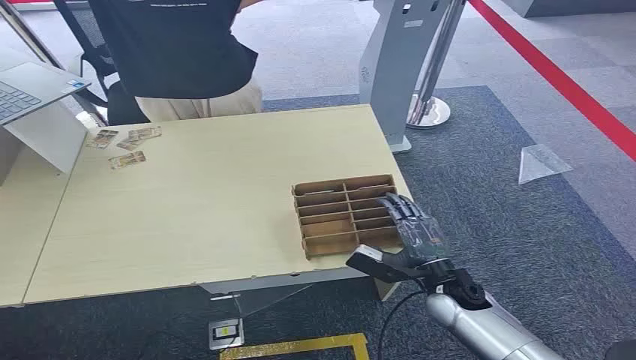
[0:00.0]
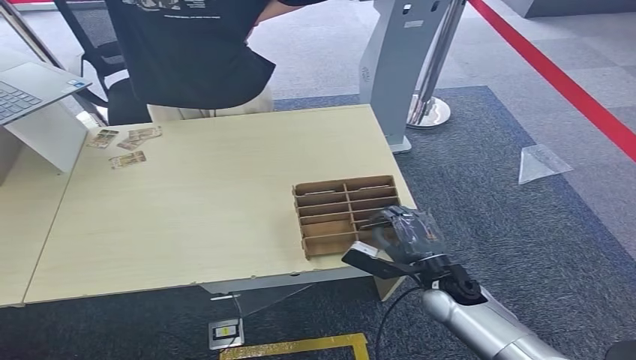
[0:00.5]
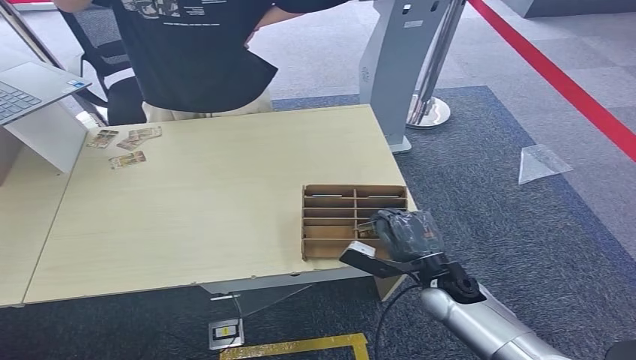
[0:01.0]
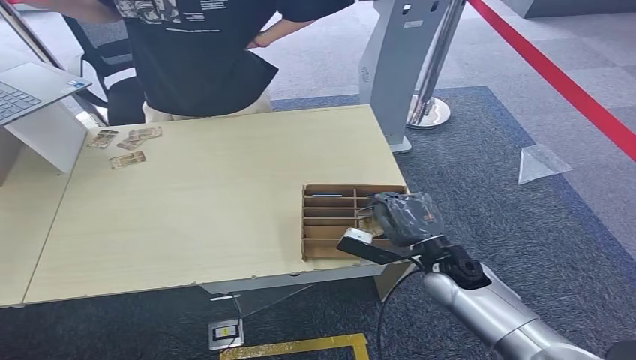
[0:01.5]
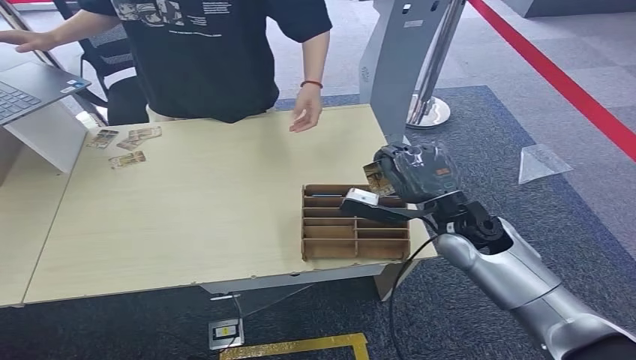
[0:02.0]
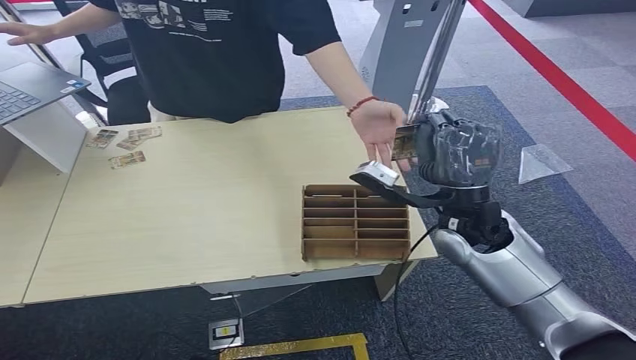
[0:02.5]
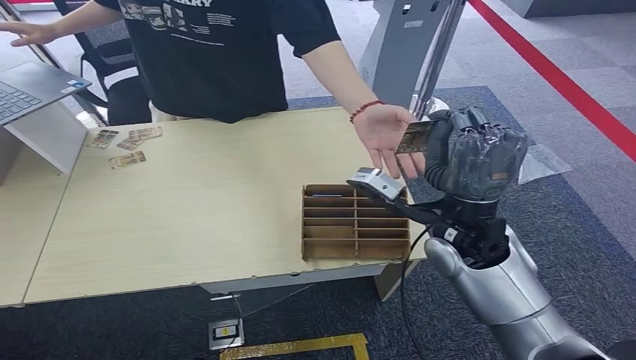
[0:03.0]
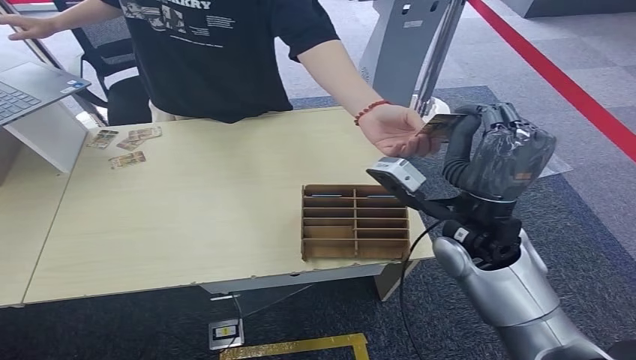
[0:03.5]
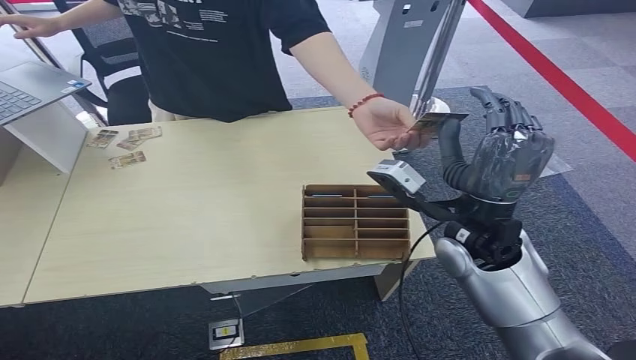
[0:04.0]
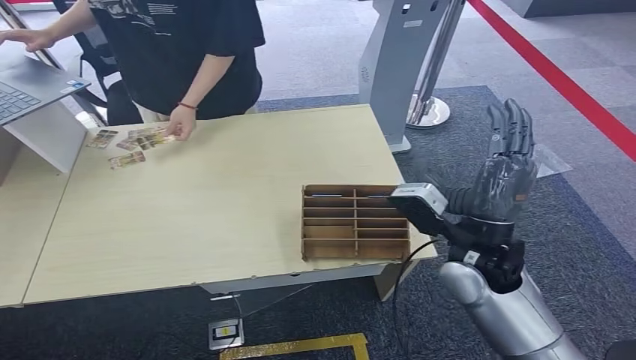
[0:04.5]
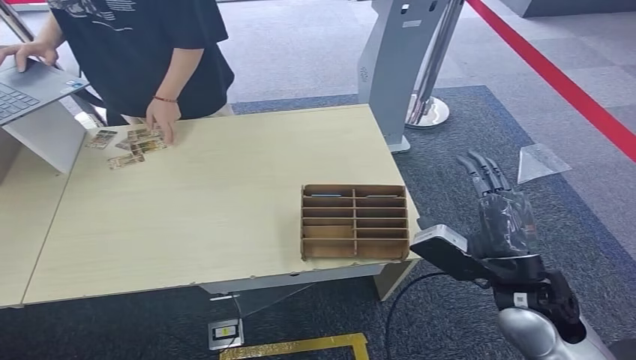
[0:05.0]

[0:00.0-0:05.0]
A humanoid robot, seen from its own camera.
Step, 0:00.0 to 0:01.5: Pick up the key card from the card box.
Step, 0:02.0 to 0:05.0: Hand the key card to the target.

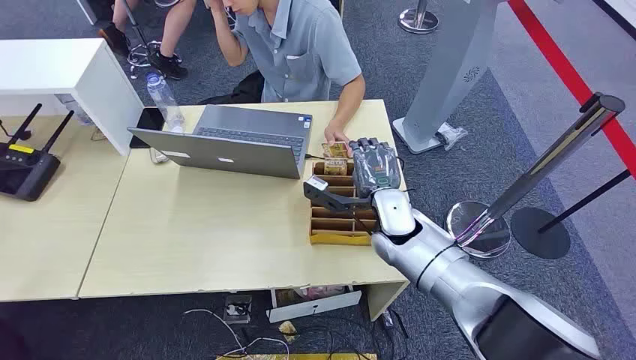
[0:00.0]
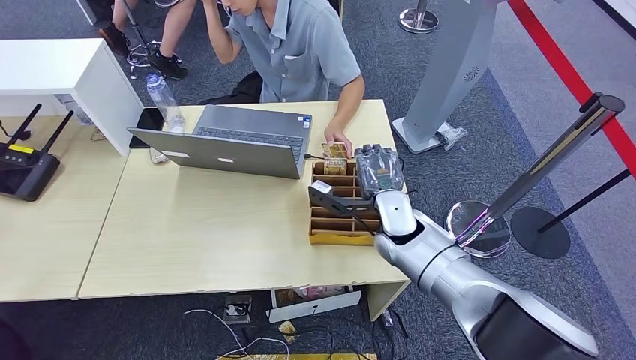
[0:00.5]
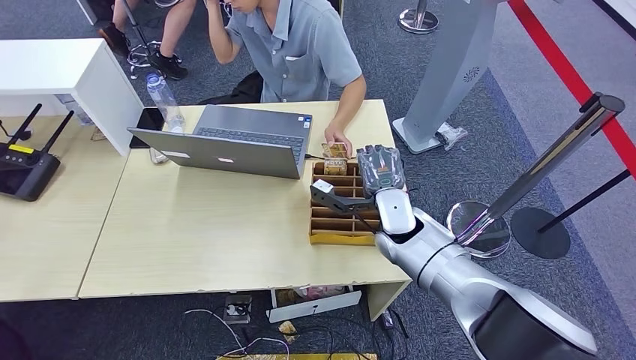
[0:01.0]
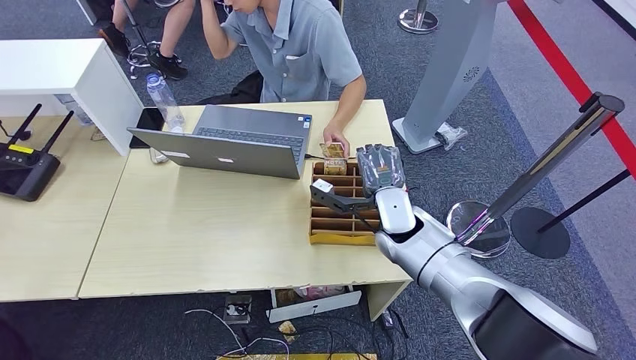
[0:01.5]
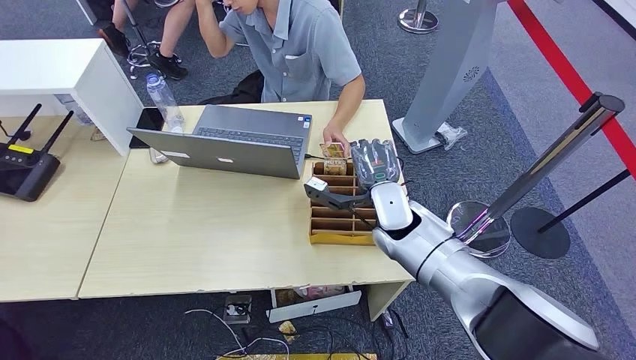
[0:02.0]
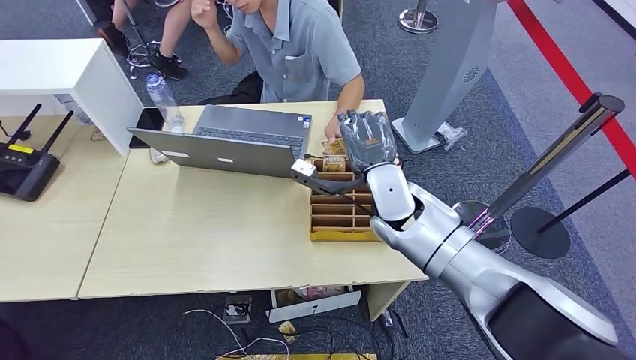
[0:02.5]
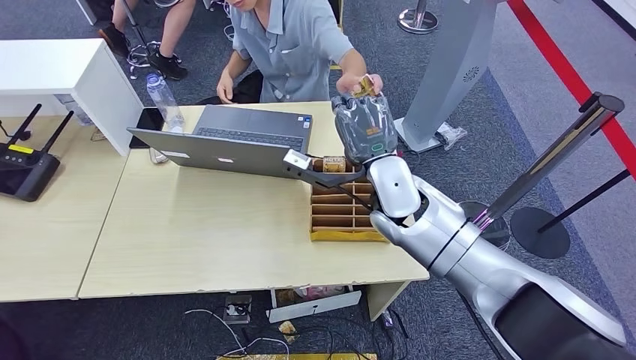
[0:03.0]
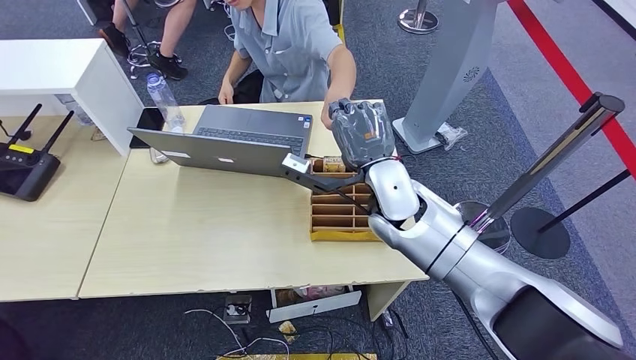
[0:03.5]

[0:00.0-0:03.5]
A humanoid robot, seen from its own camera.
Step, 0:00.0 to 0:02.0: Pick up the key card from the card box.
Step, 0:03.0 to 0:03.5: Hand the key card to the target.
0:02.0 to 0:03.5: The right hand is displaced upward by approximately 10 cm.

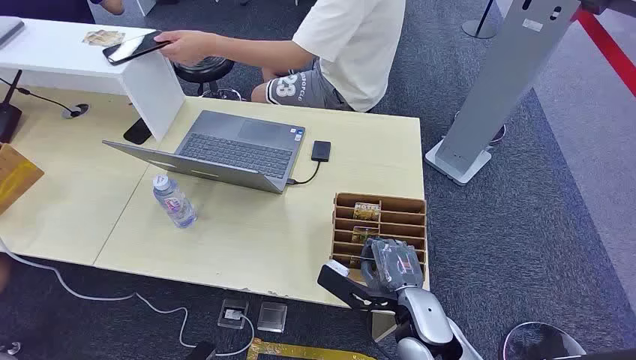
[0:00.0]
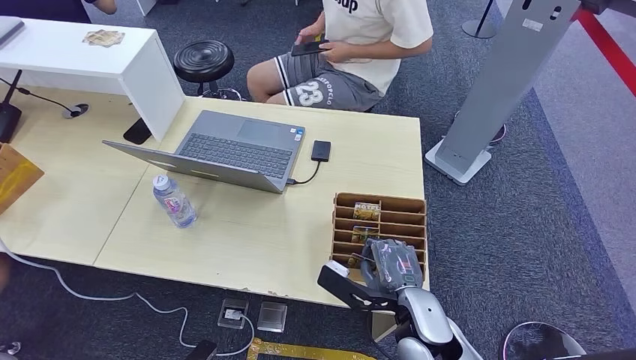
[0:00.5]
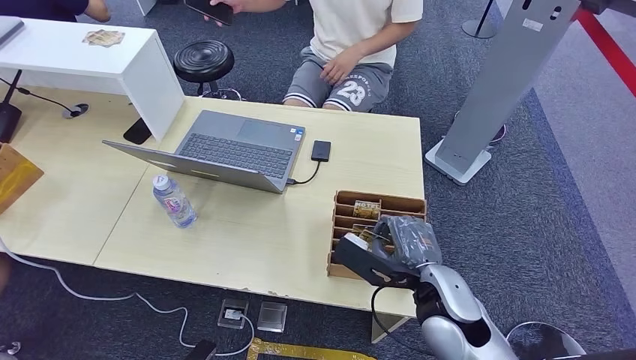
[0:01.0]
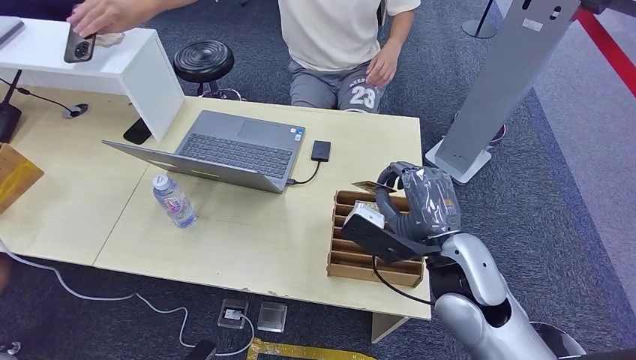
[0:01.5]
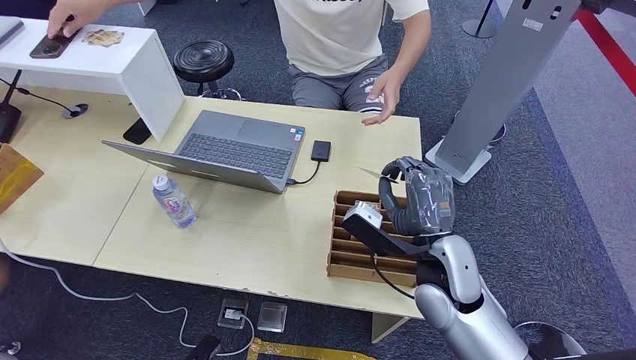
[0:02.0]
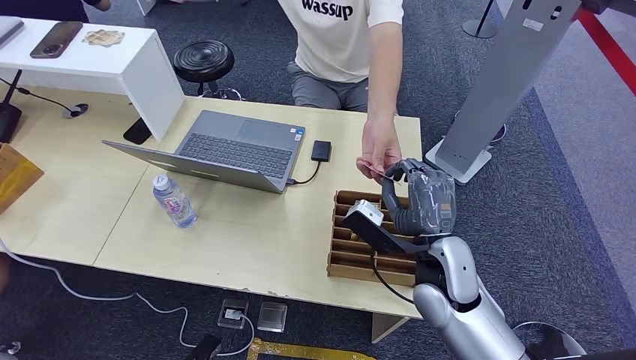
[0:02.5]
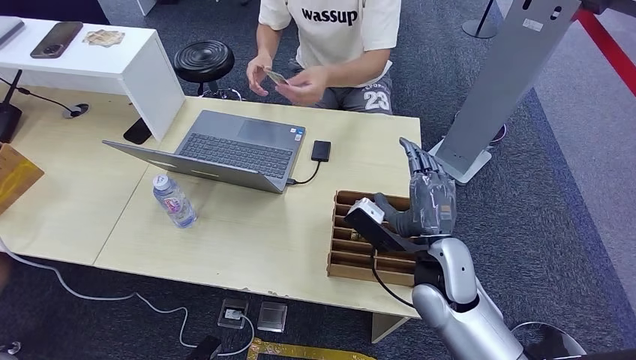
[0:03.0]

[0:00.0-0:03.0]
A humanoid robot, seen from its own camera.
Step, 0:00.0 to 0:01.0: Pick up the key card from the card box.
Step, 0:02.0 to 0:03.0: Hand the key card to the target.
0:01.5 to 0:03.0: The right hand goes about 5 cm downward.
